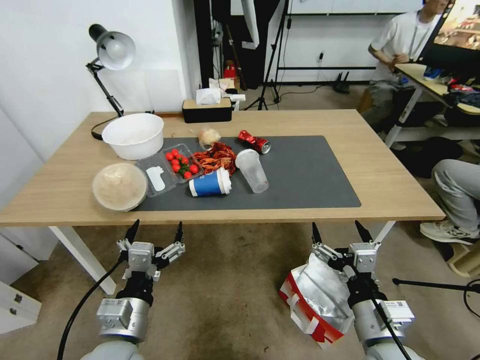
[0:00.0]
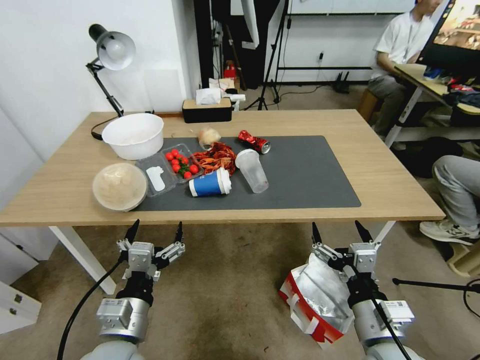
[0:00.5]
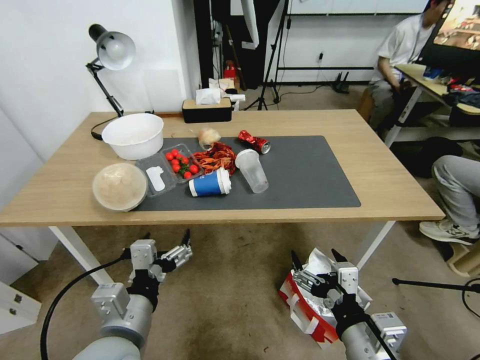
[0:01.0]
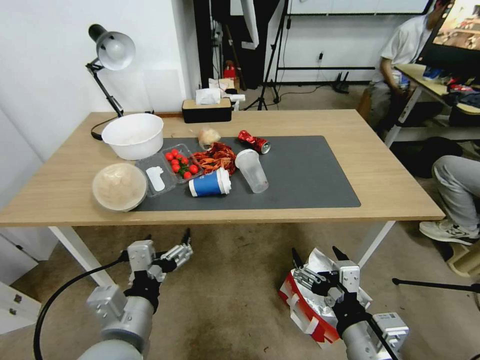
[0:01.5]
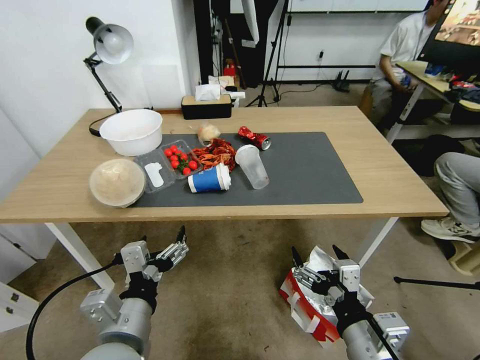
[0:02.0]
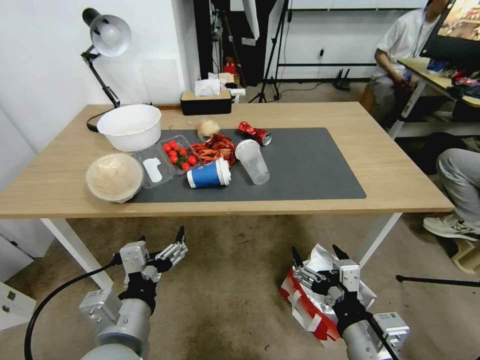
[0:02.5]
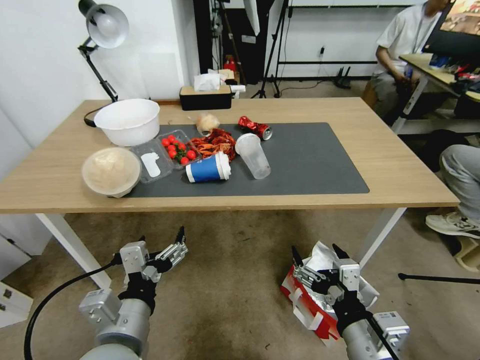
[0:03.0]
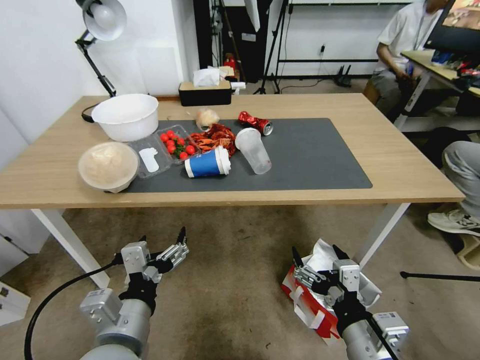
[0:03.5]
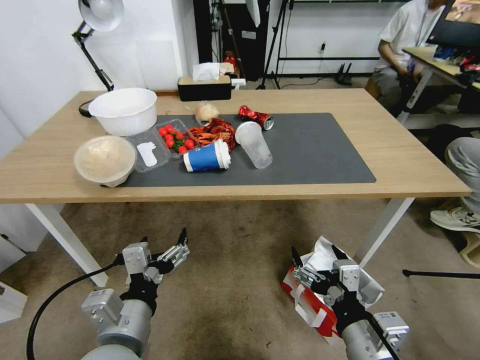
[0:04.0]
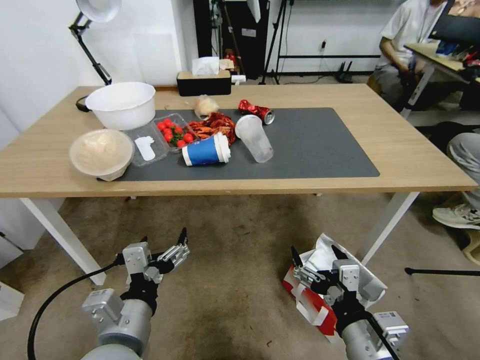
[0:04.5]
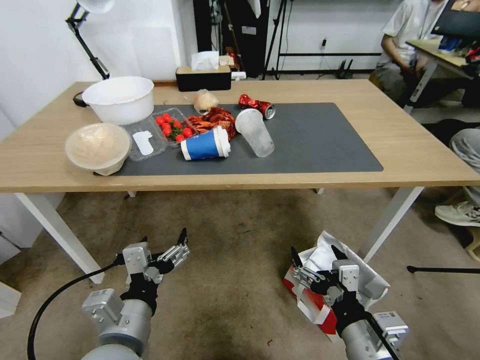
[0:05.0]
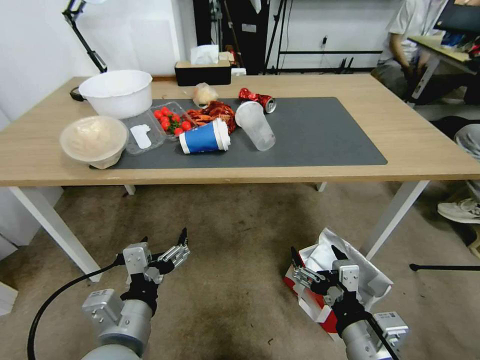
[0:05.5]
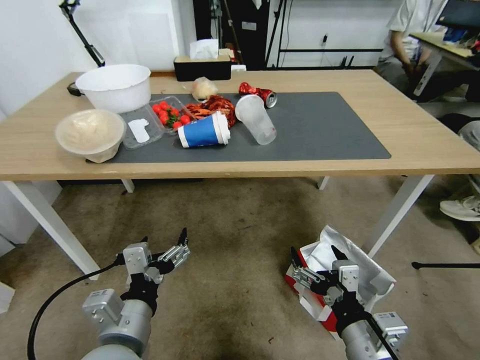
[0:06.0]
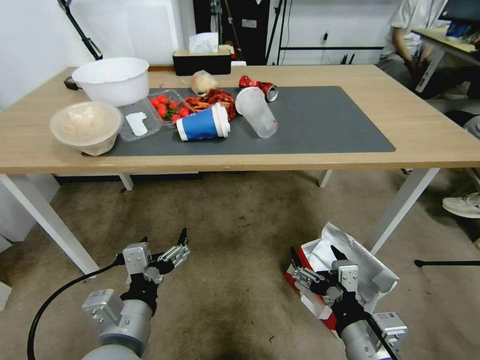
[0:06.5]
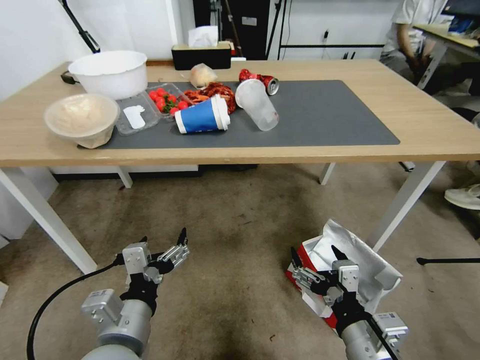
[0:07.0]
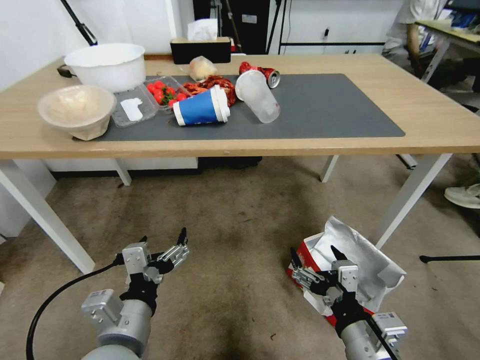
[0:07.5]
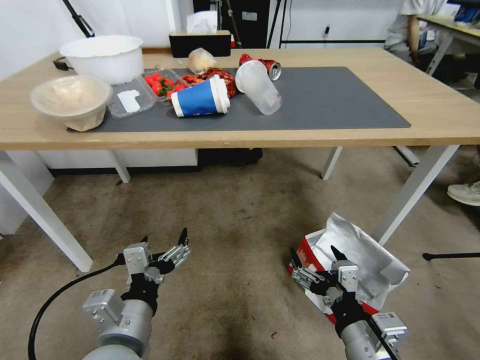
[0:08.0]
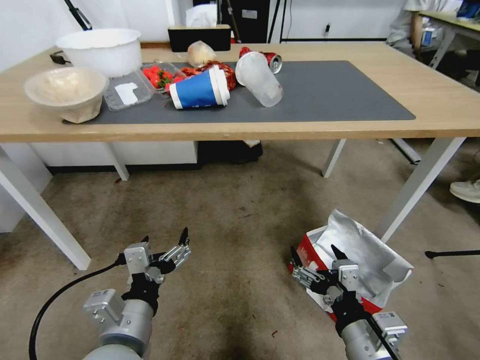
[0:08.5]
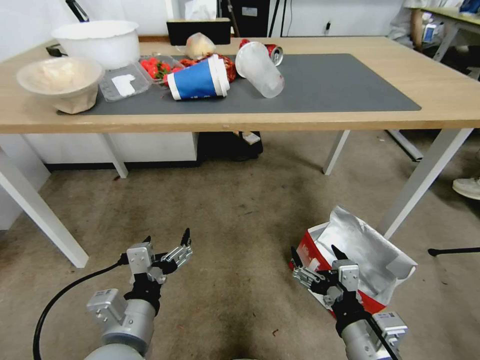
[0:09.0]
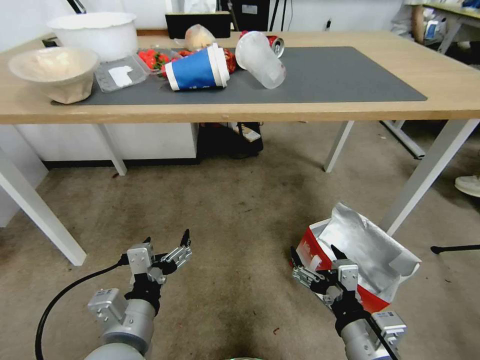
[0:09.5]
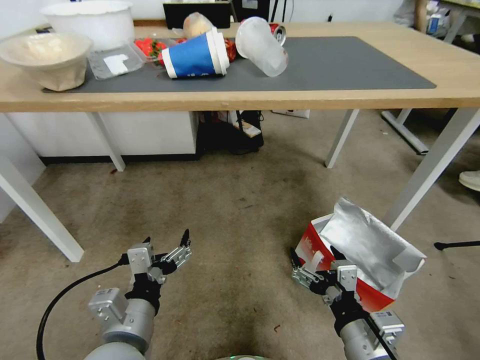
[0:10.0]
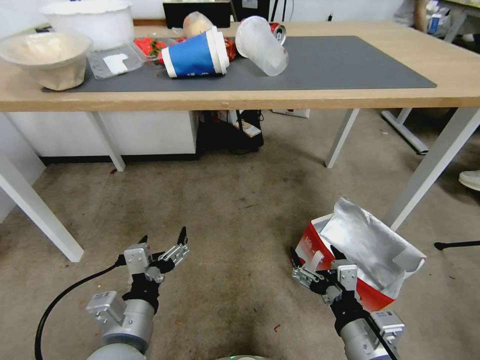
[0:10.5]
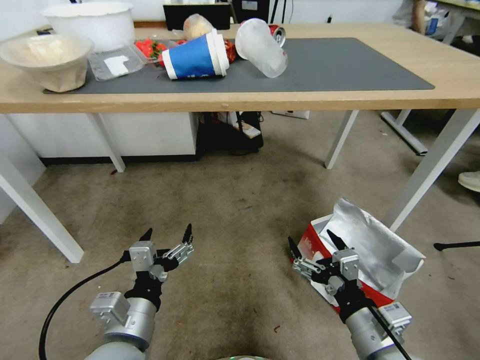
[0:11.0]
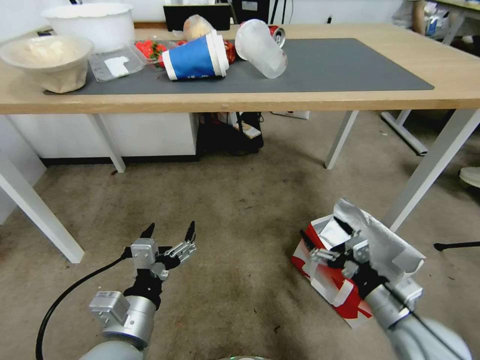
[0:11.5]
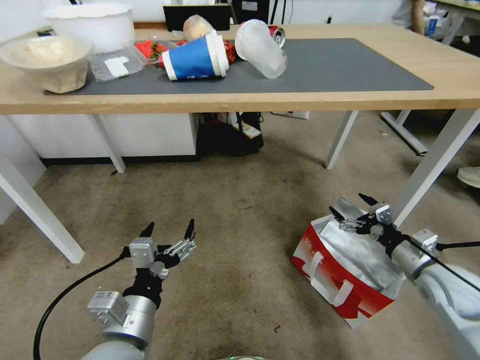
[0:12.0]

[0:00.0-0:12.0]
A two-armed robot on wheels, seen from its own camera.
Task of the whole recording: Pick up the food delivery bag from the floor and place it on the table.
0:10.0 to 0:12.0: The right gripper shifts roughly 25 cm to the right and forward.

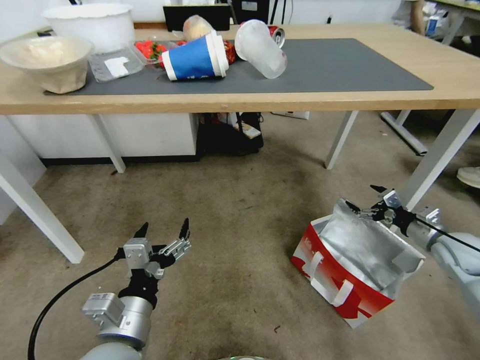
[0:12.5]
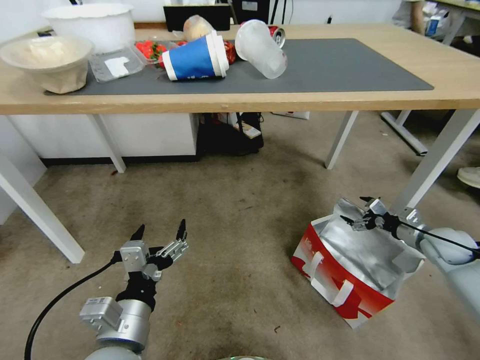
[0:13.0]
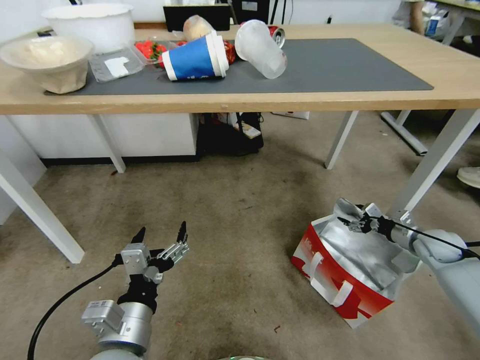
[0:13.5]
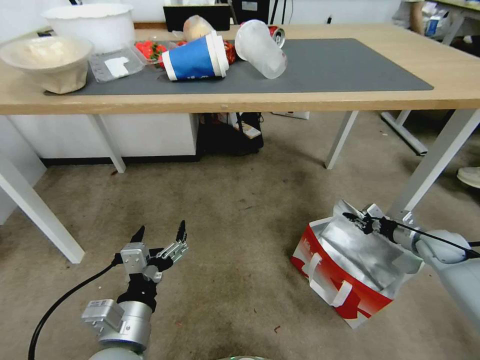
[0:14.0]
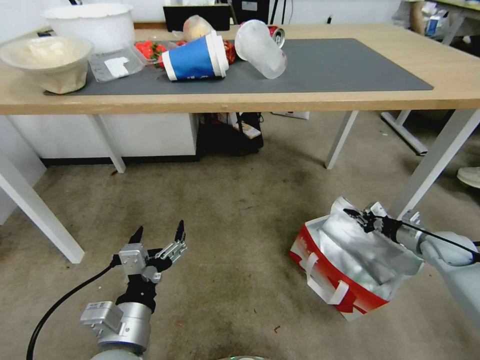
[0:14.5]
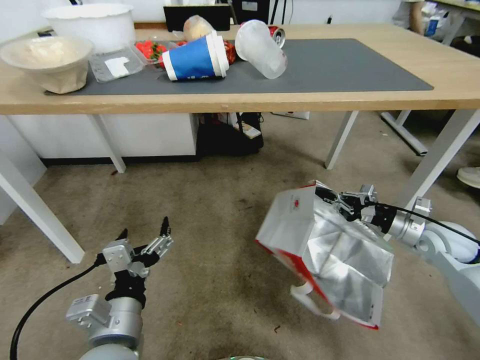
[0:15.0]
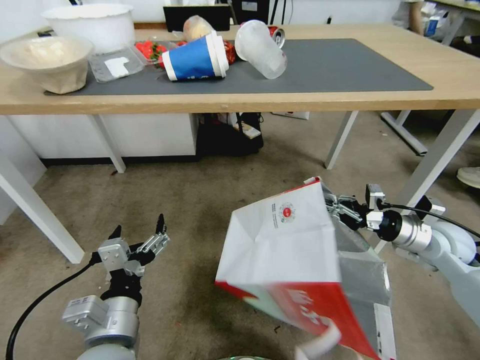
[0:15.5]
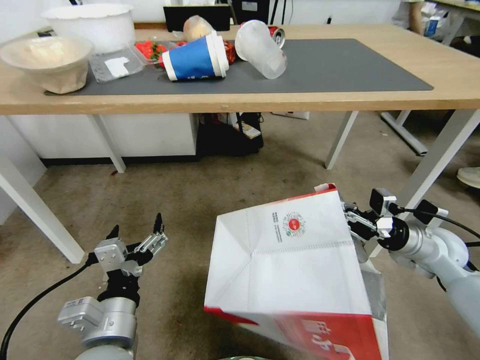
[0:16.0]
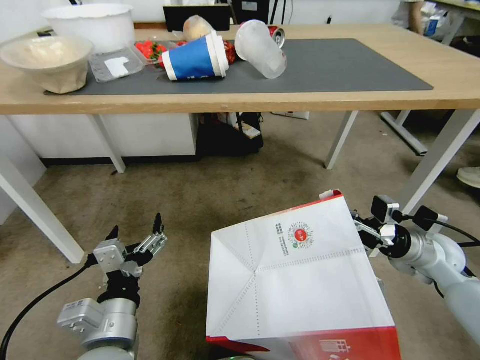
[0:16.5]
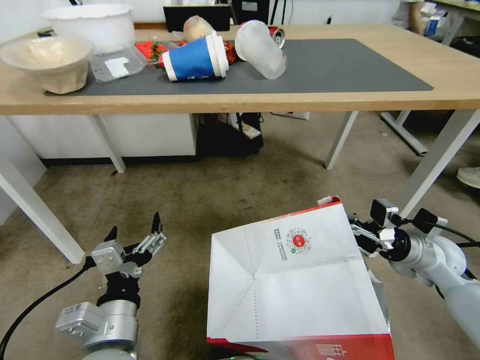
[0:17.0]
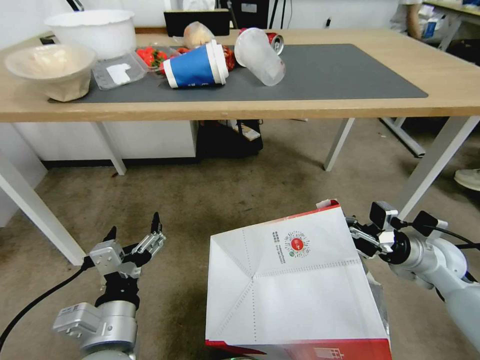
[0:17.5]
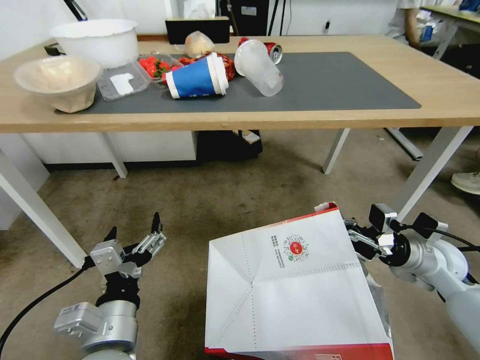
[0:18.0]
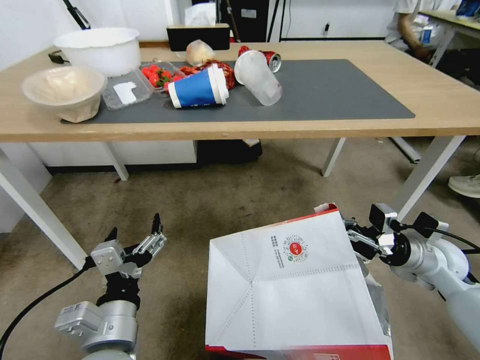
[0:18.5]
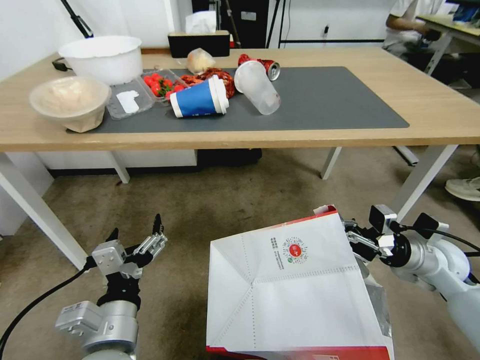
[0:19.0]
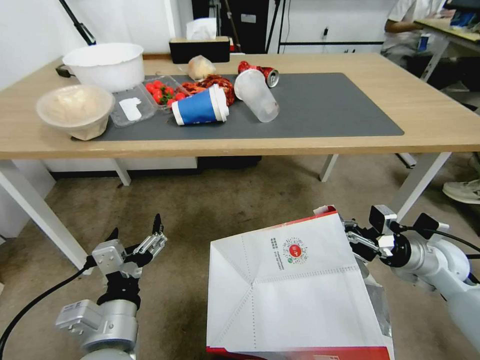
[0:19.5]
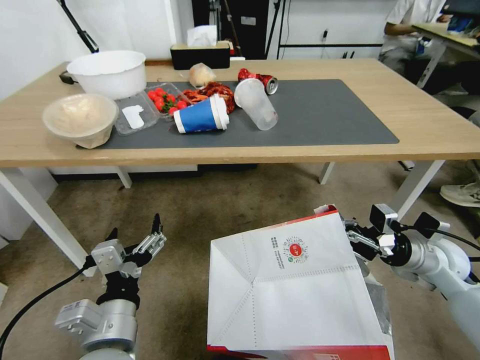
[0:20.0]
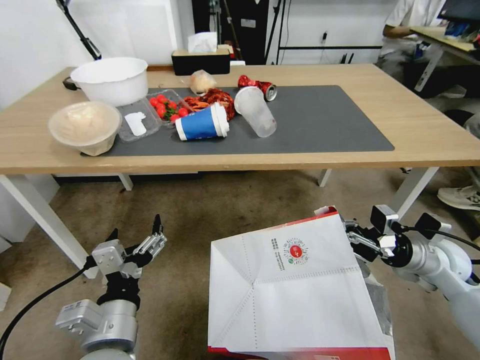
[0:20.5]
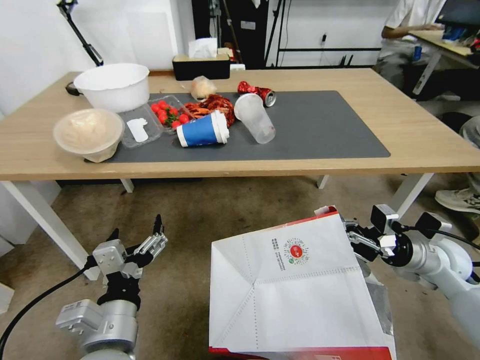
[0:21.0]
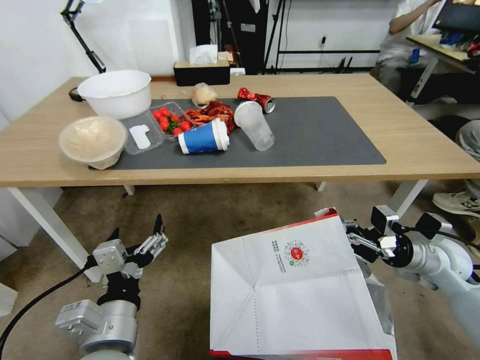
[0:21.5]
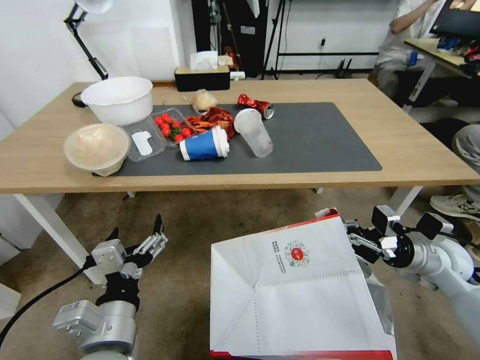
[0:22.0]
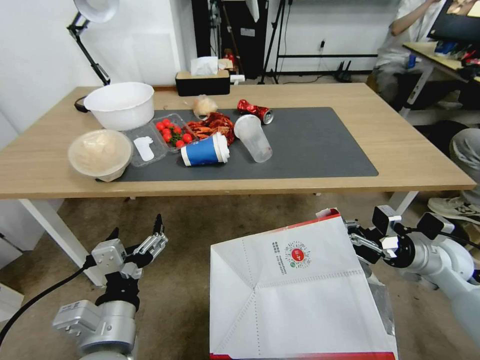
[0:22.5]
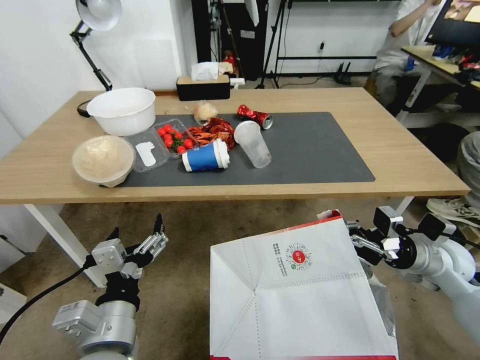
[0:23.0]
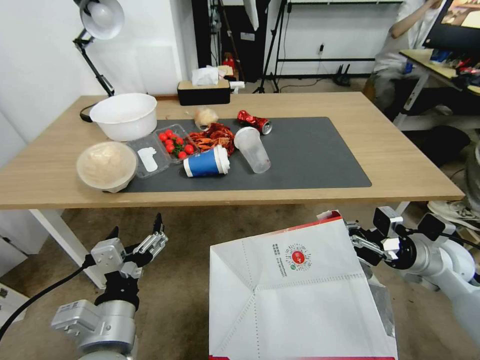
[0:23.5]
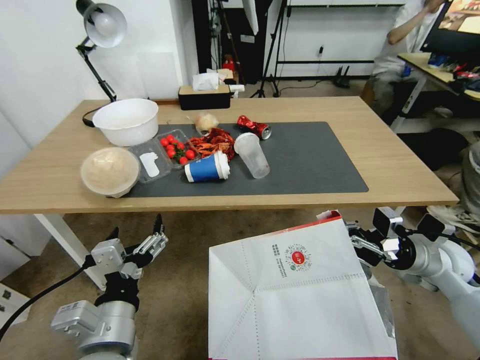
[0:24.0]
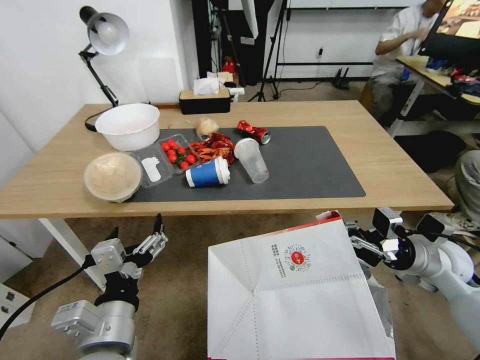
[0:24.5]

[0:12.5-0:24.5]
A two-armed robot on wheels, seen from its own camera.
Task of the whole recording: Pick up the food delivery bag from the floor and place it on the table.
0:12.5 to 0:14.5: The right gripper changes place by about 5 cm, and closes its fingers.
0:14.5 to 0:16.5: The right gripper is displaced to the left and upward by roughly 15 cm.

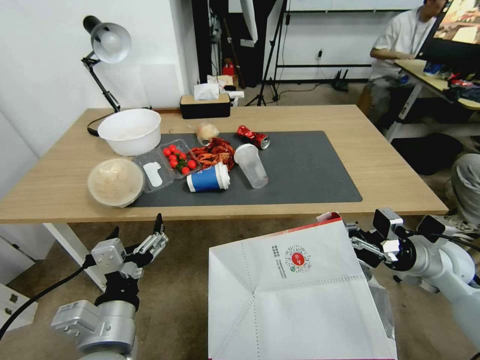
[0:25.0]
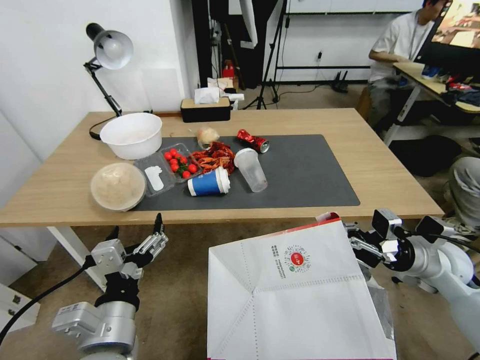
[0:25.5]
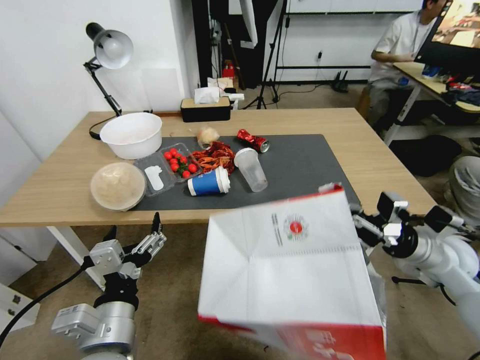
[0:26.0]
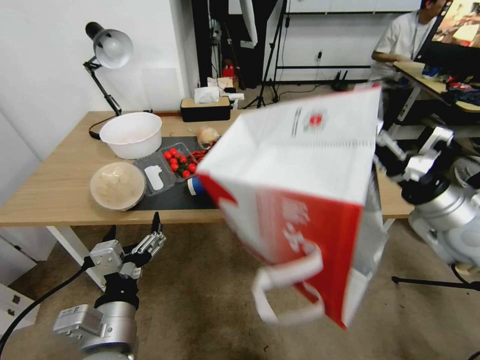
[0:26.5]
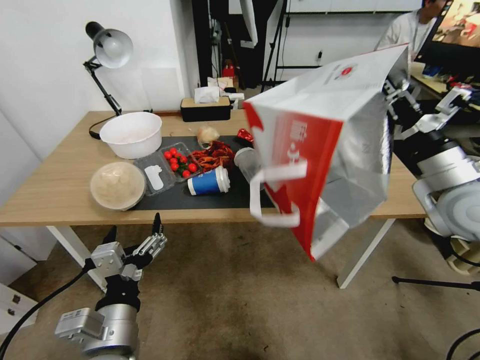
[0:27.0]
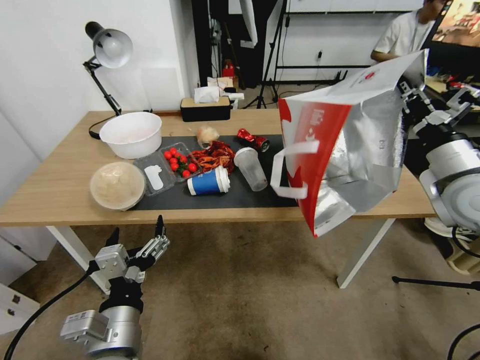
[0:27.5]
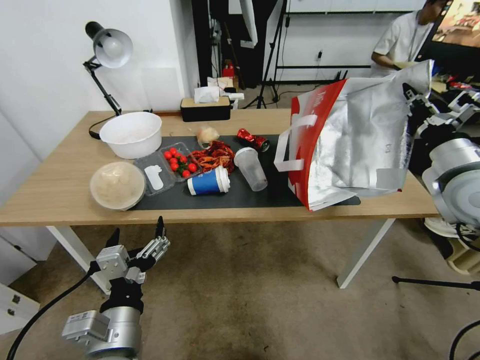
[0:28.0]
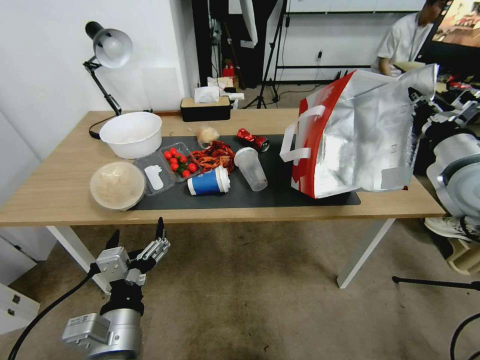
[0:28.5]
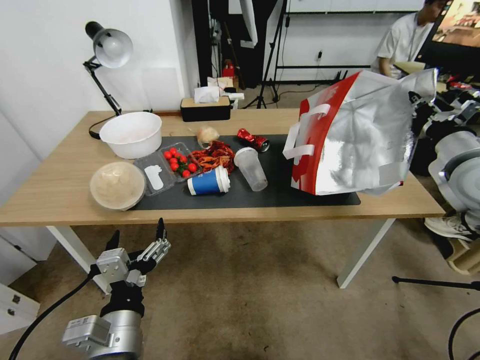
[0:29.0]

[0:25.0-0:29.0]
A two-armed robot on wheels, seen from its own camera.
Task of the whole recording: Pick up the food delivery bag from the floor and place it on the table.
0:25.0 to 0:27.0: The right gripper travels upward by some 15 cm.
0:27.0 to 0:29.0: The right gripper ends up some 5 cm from where it was.
